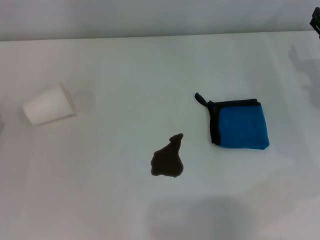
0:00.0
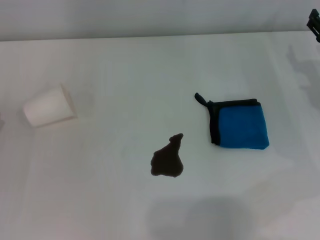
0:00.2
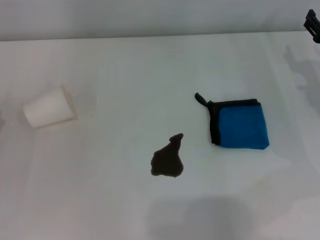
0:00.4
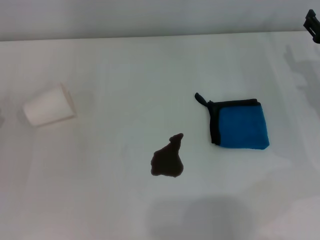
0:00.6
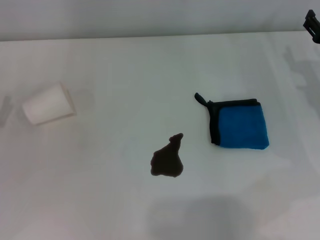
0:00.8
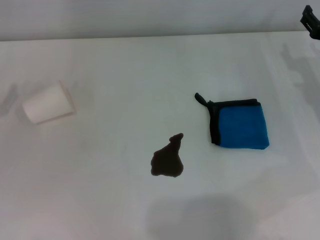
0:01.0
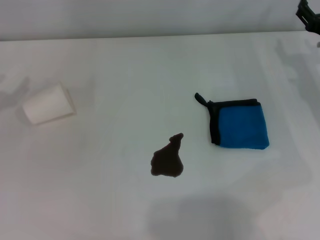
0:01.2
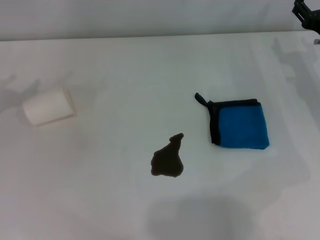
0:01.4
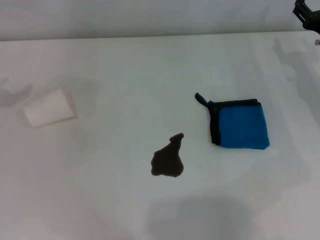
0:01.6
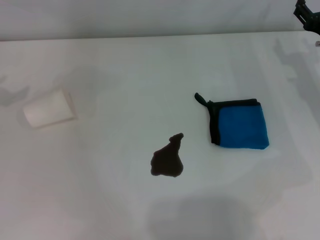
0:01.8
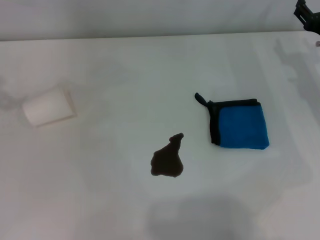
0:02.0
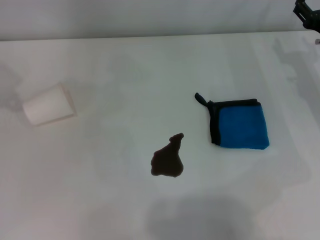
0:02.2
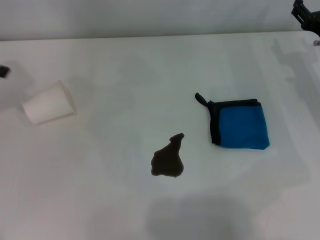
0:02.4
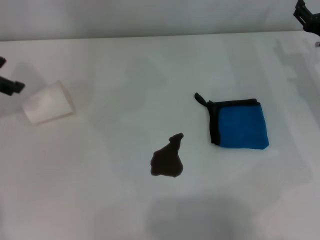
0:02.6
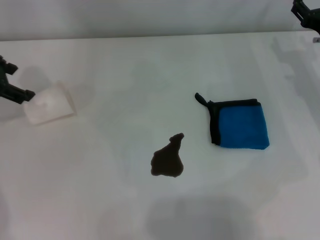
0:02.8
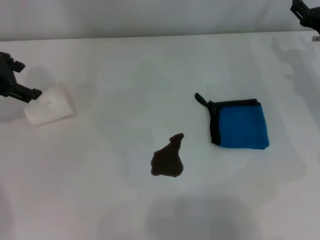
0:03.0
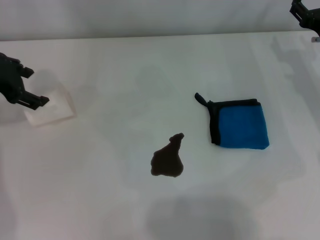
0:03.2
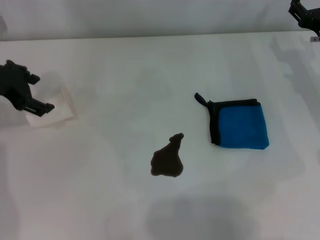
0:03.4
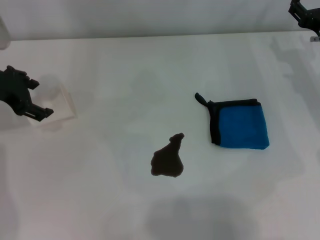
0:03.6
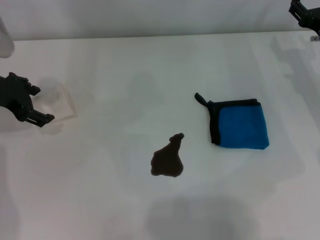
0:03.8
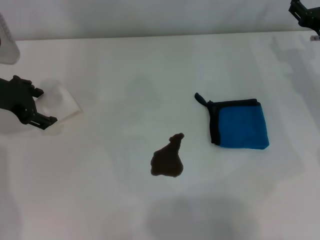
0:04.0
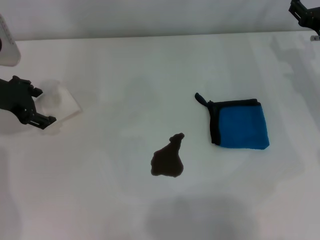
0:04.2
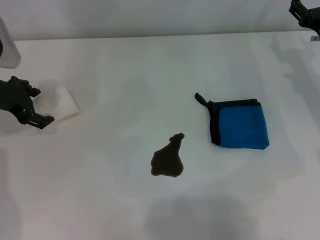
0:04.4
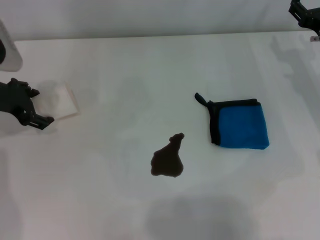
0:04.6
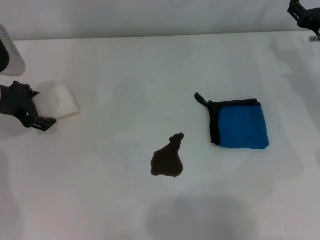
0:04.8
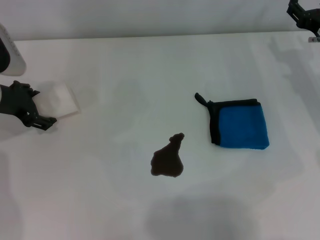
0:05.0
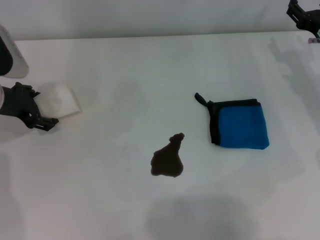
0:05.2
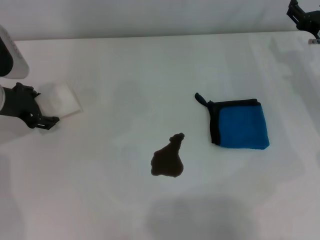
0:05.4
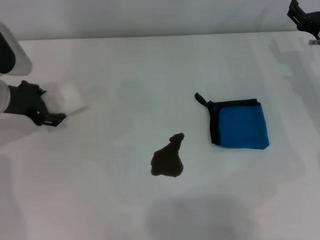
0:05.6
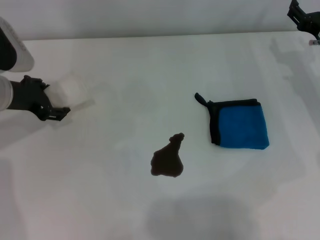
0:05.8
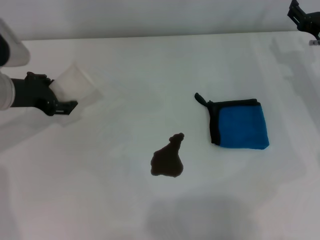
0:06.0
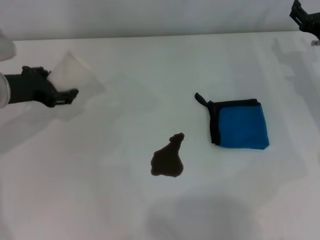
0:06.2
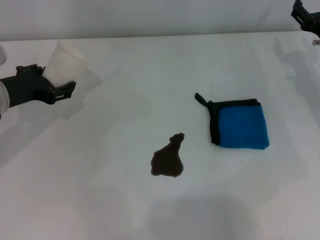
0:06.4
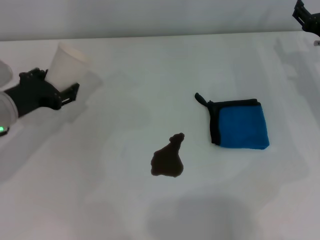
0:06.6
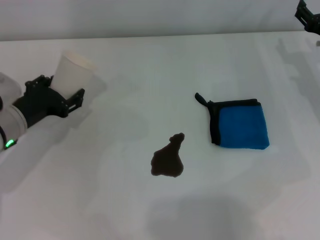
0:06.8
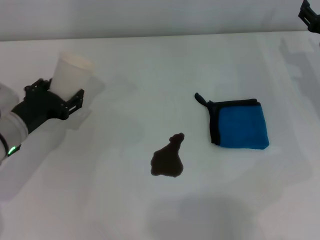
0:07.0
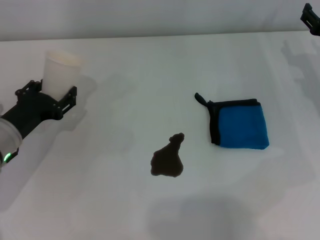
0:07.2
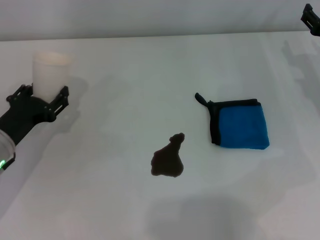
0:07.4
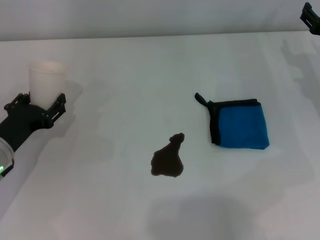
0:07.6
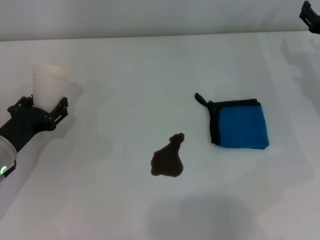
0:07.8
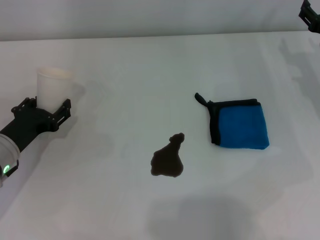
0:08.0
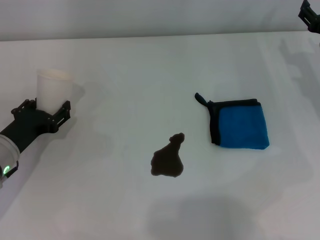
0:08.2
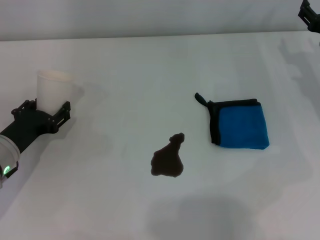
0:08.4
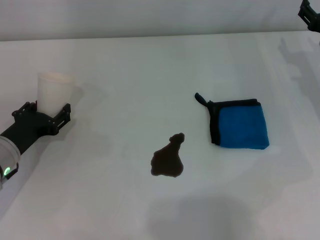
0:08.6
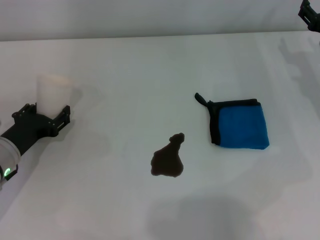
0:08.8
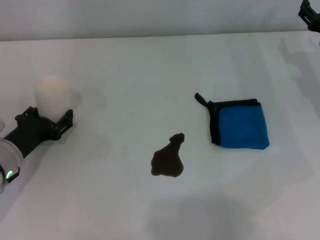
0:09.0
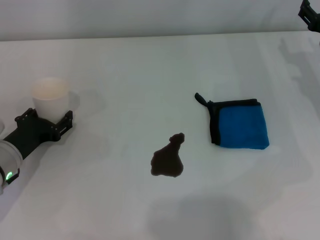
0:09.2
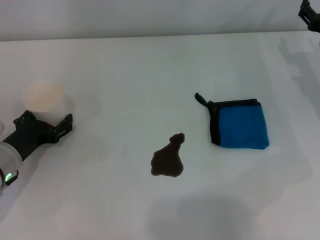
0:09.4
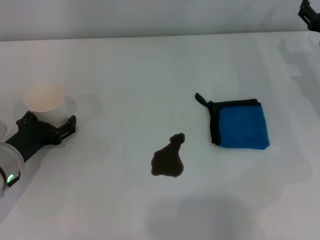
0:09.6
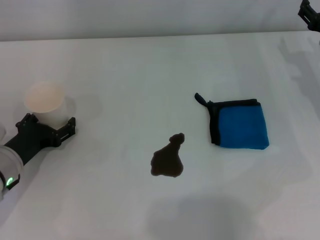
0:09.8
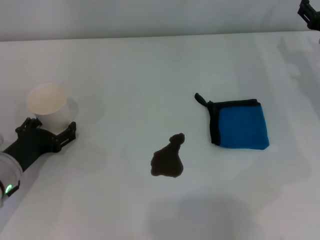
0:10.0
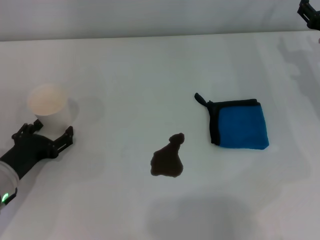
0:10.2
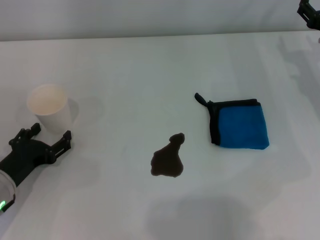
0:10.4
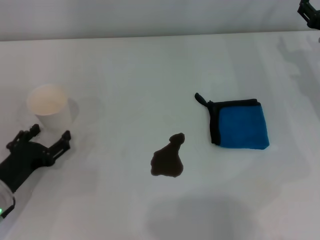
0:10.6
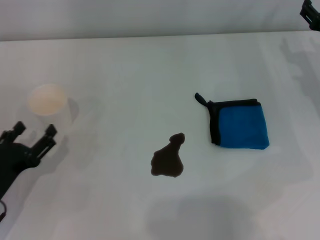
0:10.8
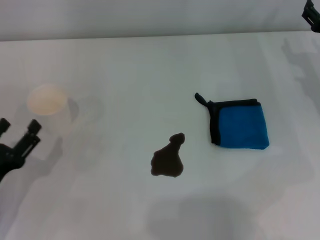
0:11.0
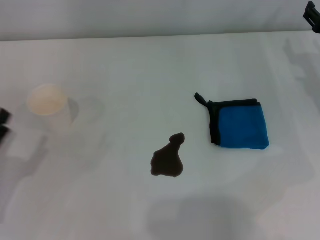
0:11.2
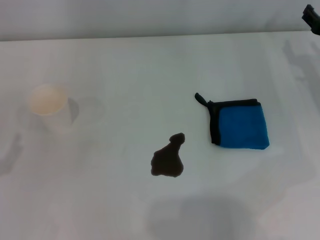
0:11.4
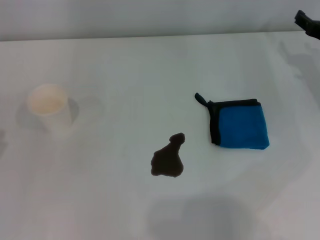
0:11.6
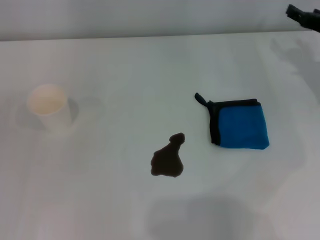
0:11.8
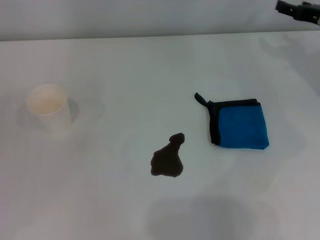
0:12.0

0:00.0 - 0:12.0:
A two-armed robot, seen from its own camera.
Step, 0:00.0 - 0:05.2: Grasp the paper cup with the left gripper.
Step, 0:05.6 - 0:10.0: Stand the paper cup upright with the left gripper.
0:01.6 - 0:03.0: The left gripper goes some 10 cm to the right.
0:03.0 - 0:04.4: The left gripper is displaced downward by some 5 cm.
0:04.4 - 0:06.0: The left gripper closes.
0:06.0 - 0:07.6: The left gripper moves backward and downward, some 15 cm.
0:07.6 - 0:09.0: The left gripper opens.
0:09.0 - 0:10.4: The left gripper opens its fingers.
0:10.4 - 0:12.0: The right gripper moves some 5 cm, while the left gripper moves to the left and backward, approximately 10 cm.

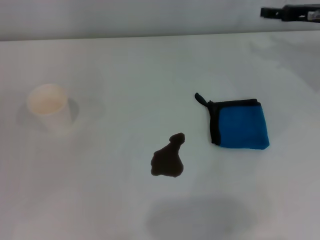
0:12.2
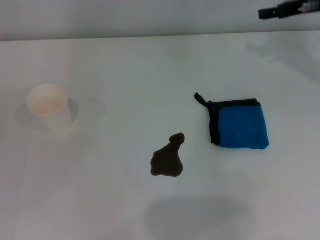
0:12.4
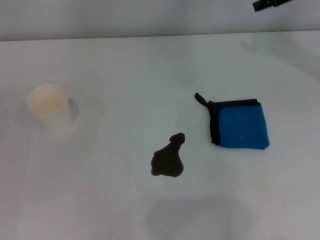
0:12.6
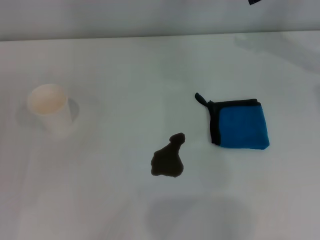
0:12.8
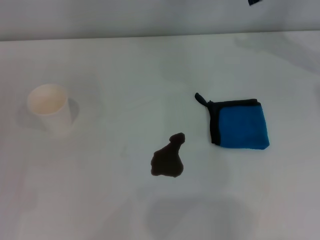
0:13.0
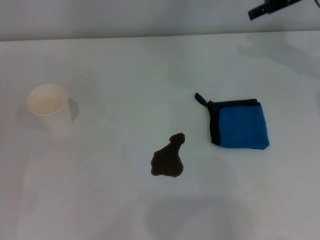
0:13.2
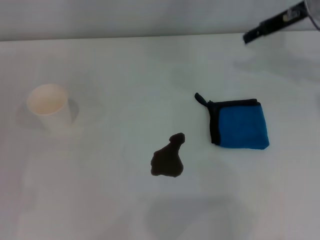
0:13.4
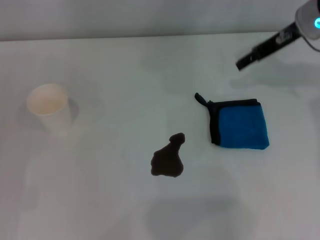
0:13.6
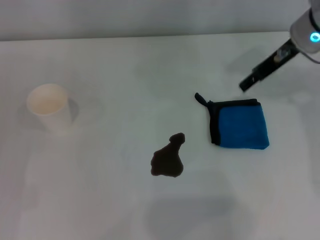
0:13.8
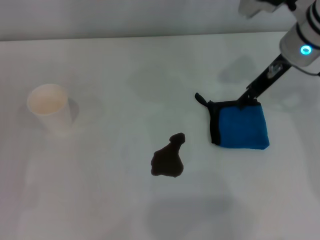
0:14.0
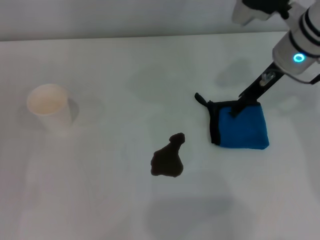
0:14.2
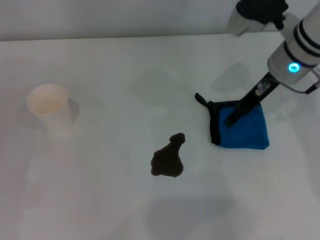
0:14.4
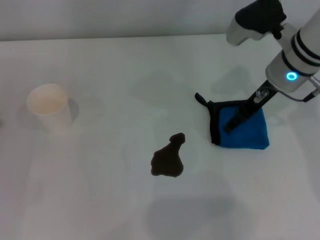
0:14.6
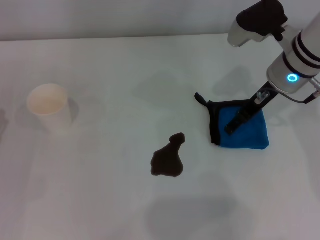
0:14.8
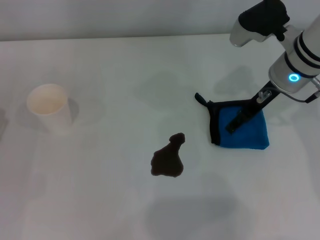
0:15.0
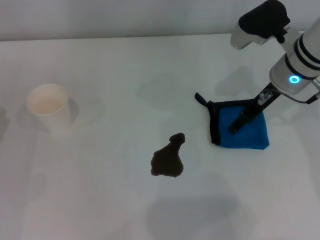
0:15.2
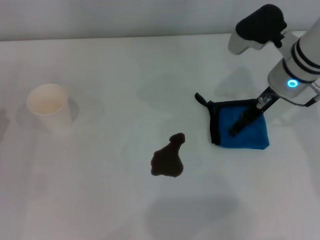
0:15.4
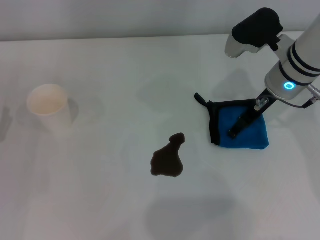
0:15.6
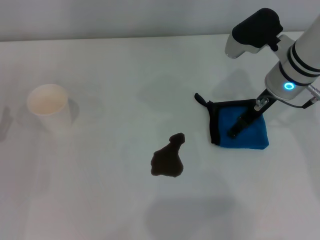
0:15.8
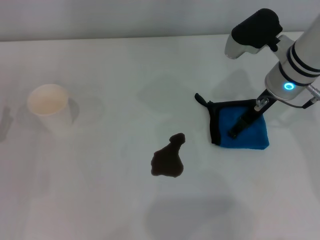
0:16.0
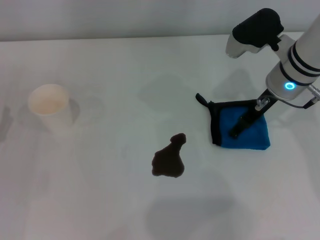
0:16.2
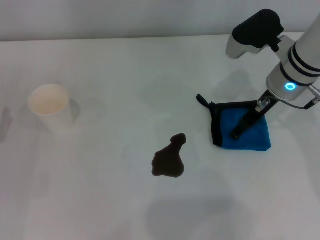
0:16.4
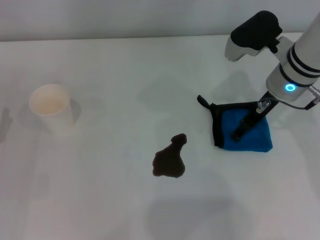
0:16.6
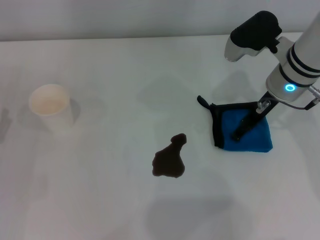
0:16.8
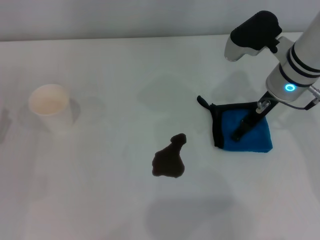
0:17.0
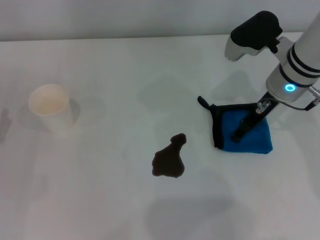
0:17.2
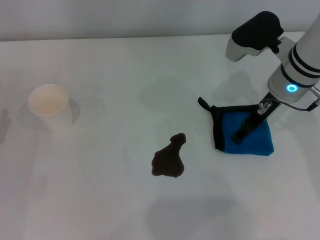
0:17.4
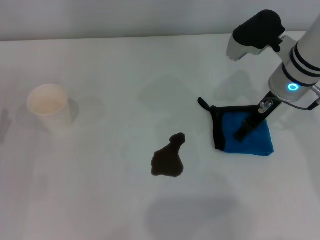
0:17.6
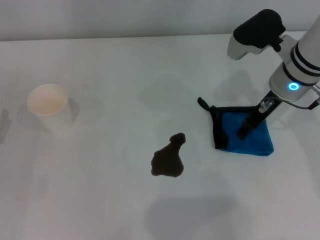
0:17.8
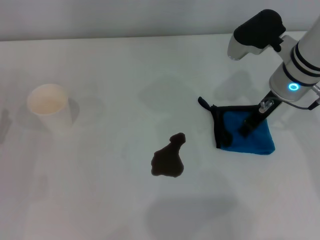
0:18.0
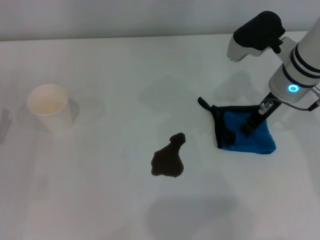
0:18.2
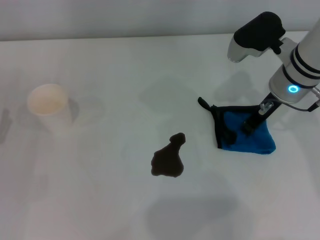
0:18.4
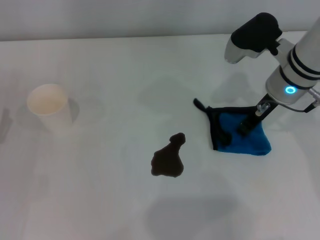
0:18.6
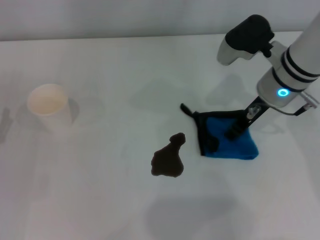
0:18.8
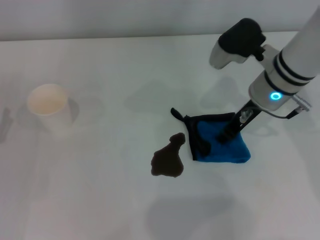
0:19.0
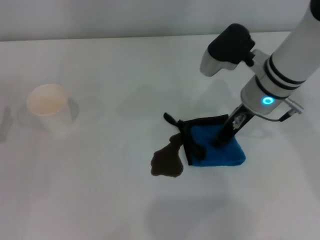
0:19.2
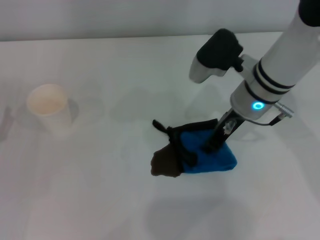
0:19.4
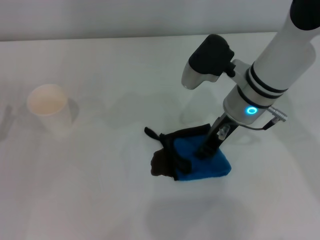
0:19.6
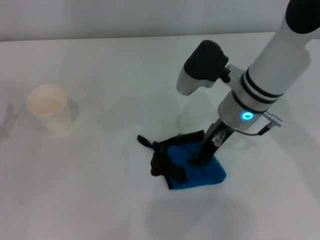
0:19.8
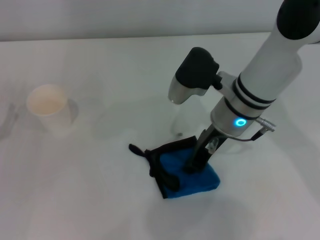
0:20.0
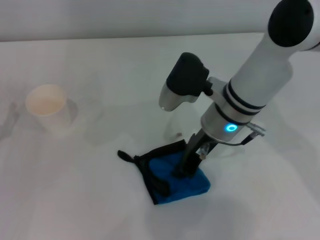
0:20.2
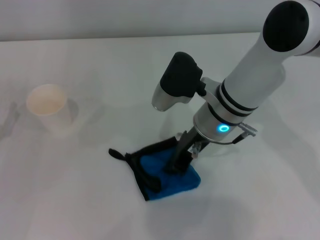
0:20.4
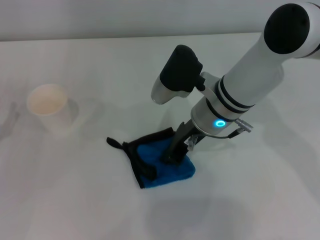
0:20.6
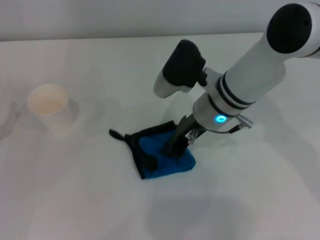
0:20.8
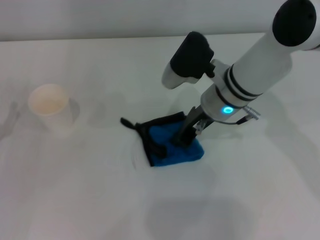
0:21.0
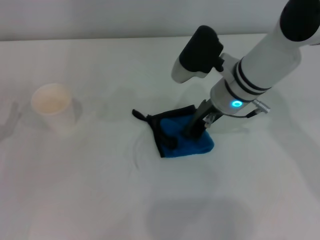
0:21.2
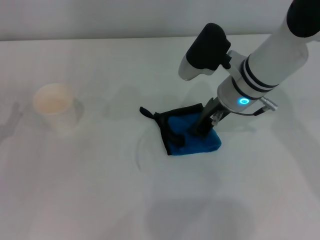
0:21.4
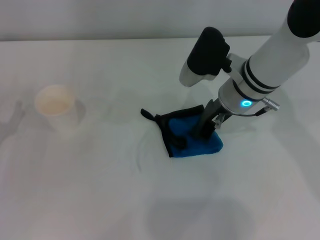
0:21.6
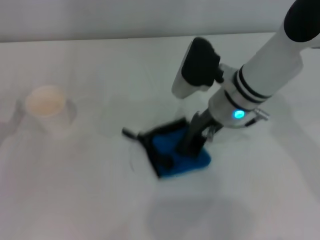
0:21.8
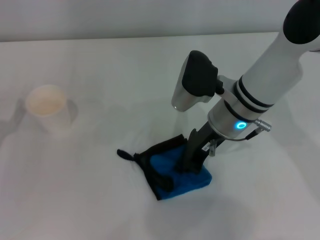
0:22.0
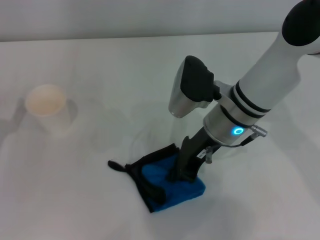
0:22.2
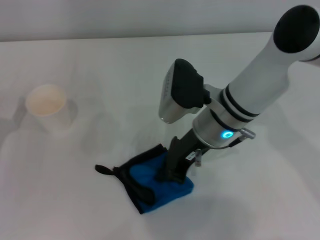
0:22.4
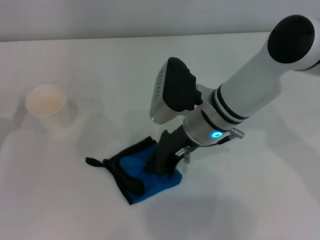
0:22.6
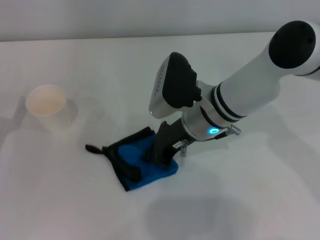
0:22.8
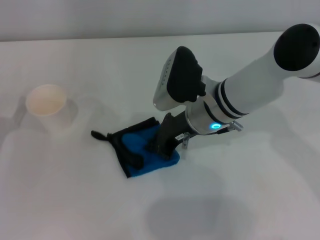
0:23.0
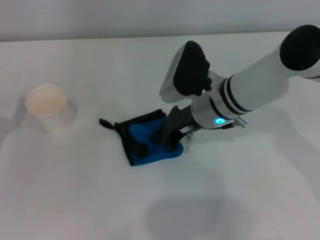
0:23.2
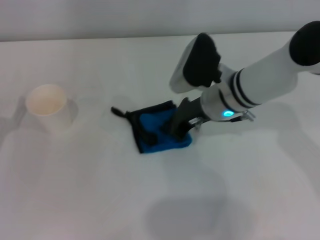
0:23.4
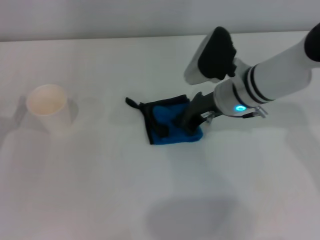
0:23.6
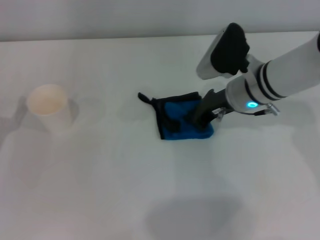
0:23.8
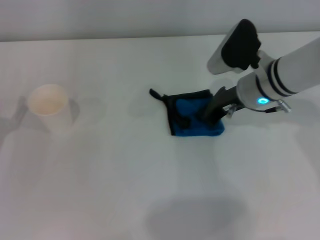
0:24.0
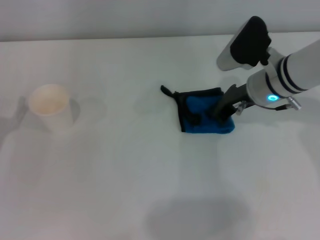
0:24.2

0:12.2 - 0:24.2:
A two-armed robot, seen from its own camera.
Step, 0:12.2 - 0:18.2: Grasp the rag with the right gripper.
Step, 0:18.4 - 0:24.2: Wipe the stains off the table with the right gripper.
0:12.2 - 0:13.8: The right gripper moves to the left, approximately 10 cm.
0:13.8 - 0:15.2: The right gripper ends up approximately 5 cm from where it was.
0:15.2 - 0:16.6: The grippers move only a little.
0:16.6 - 0:18.2: The right gripper closes.
0:18.2 - 0:19.8: The right gripper is displaced to the left by approximately 10 cm, and closes its fingers.
0:19.8 - 0:21.2: There are only small adjustments of the grippers.
0:21.2 - 0:22.6: The right gripper shifts by approximately 5 cm.
0:22.6 - 0:24.2: The right gripper heads to the right, covering approximately 10 cm.
